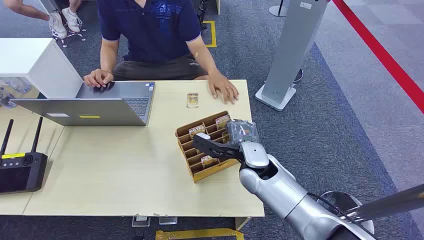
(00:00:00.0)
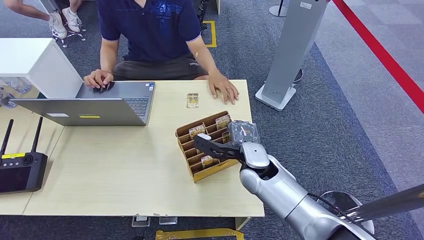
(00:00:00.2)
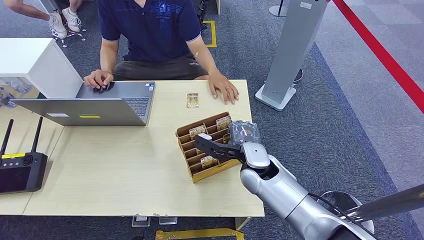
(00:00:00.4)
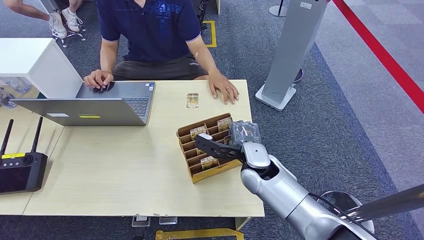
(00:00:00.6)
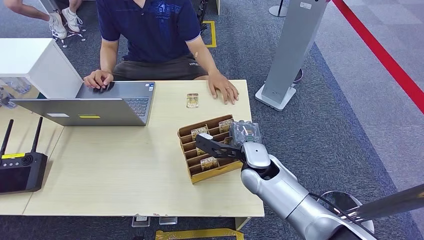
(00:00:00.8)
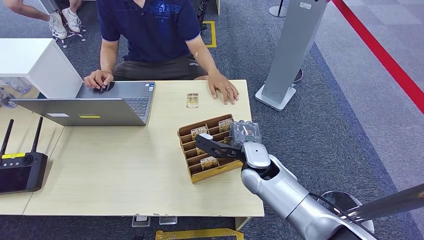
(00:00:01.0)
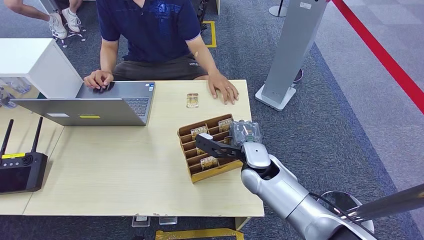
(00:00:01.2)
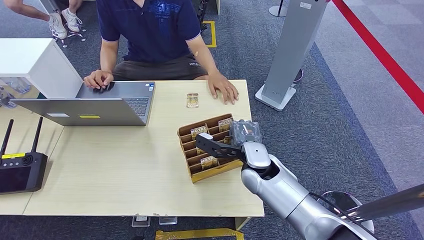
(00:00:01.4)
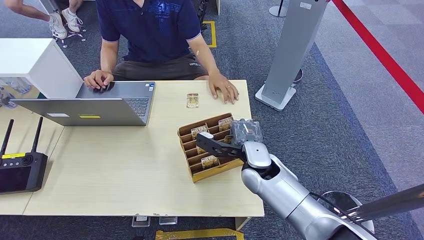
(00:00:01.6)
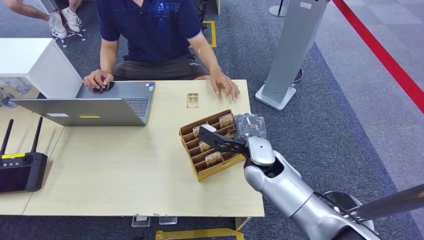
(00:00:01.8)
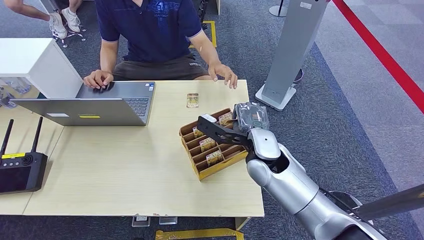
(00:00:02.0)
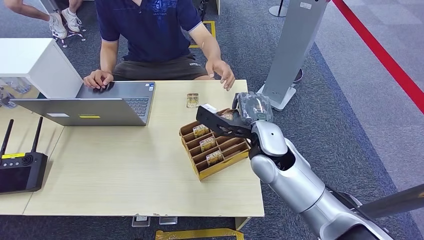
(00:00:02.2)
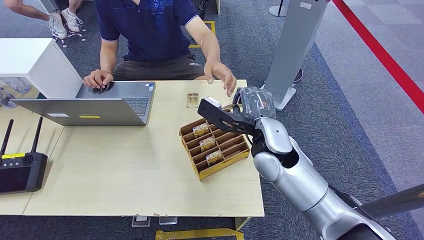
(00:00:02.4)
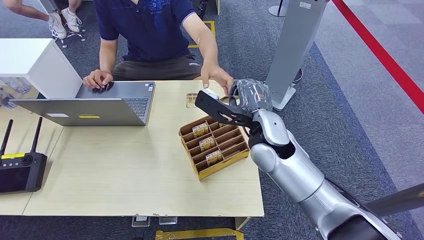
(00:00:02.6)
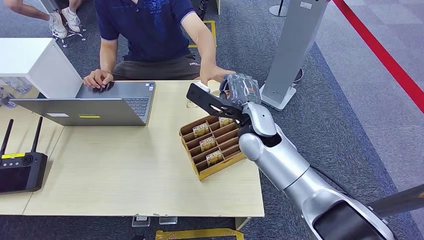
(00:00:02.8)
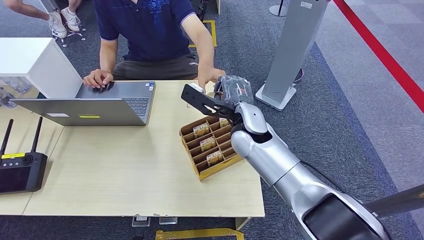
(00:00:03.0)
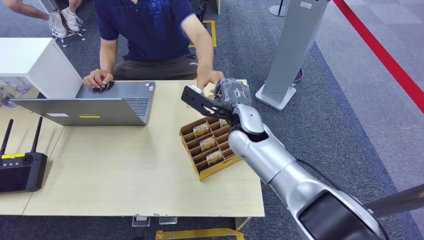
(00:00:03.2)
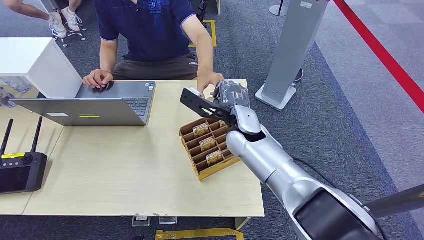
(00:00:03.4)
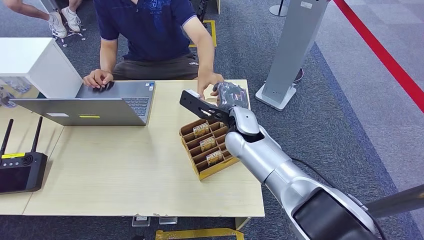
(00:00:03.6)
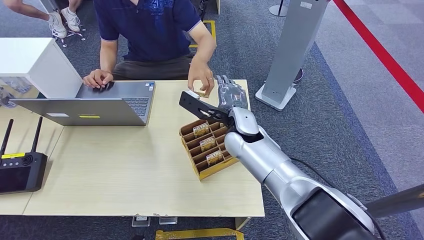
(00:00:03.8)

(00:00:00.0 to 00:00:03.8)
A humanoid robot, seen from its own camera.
Step, 00:00:00.0 - 00:00:01.8: Pick up the room card from the card holder.
Step, 00:00:02.6 - 00:00:03.8: Hand the room card to the target.
00:00:01.2 - 00:00:02.6: The right hand travels upward by some 10 cm.
00:00:02.6 - 00:00:03.8: The right hand is displaced to the left by approximately 5 cm.
